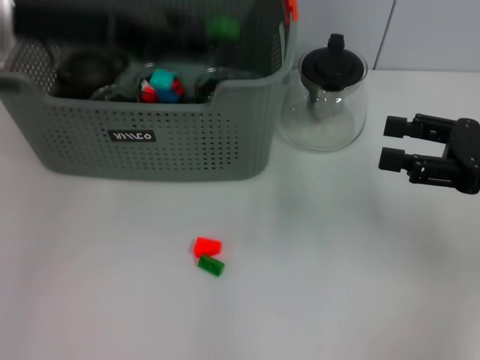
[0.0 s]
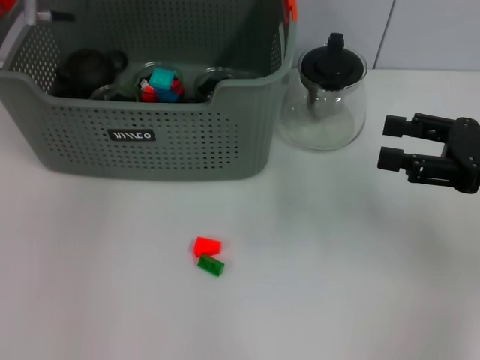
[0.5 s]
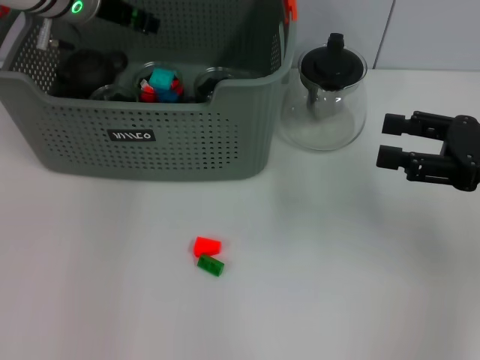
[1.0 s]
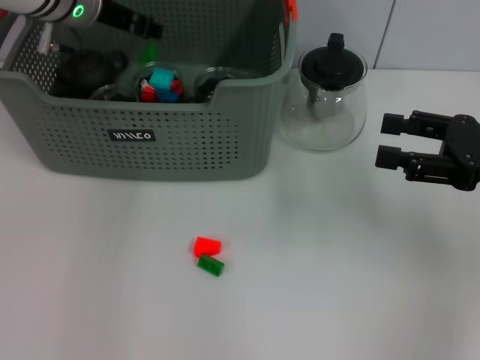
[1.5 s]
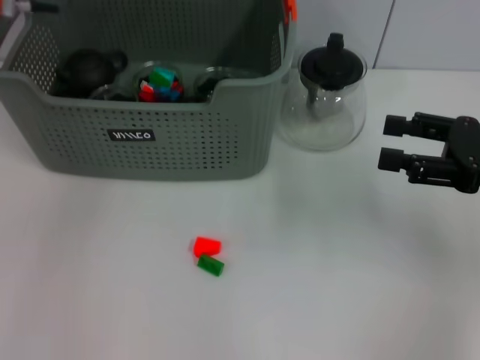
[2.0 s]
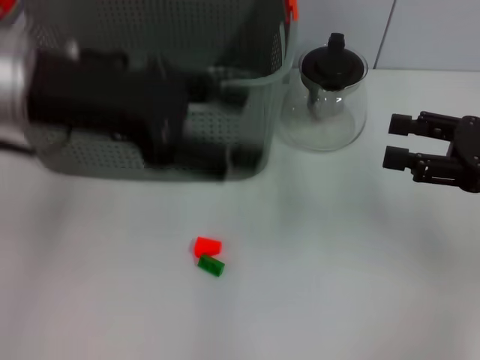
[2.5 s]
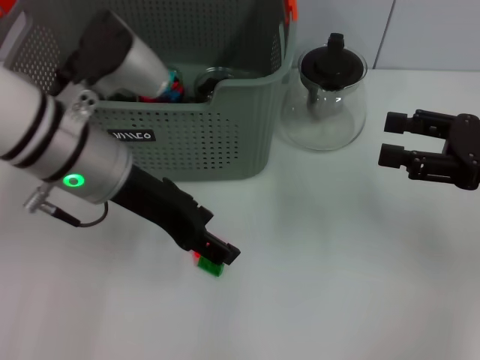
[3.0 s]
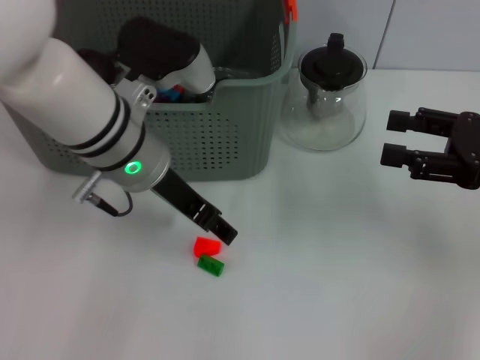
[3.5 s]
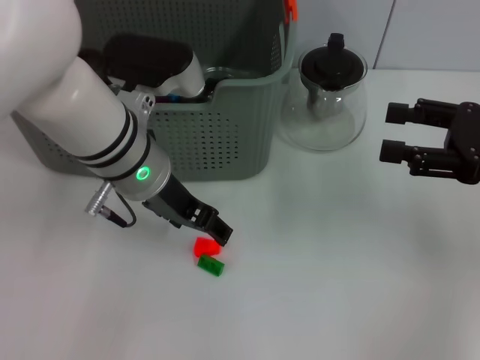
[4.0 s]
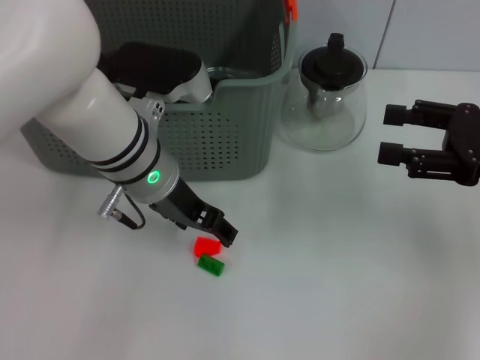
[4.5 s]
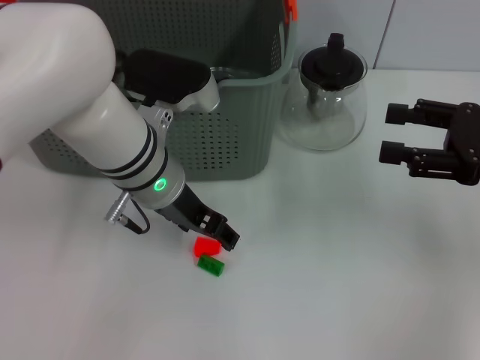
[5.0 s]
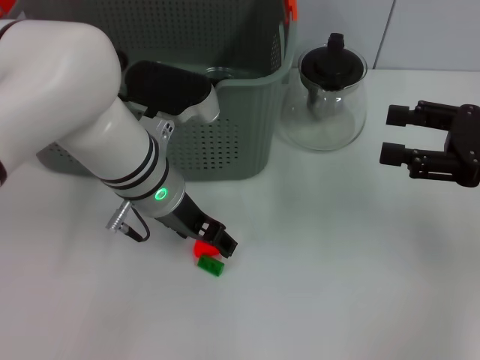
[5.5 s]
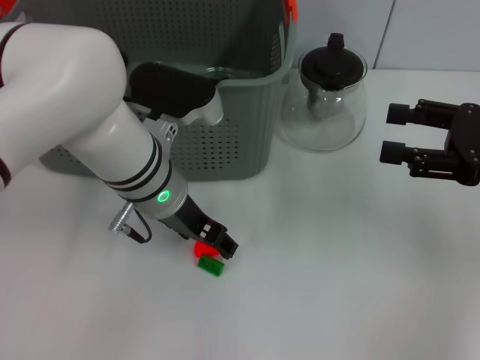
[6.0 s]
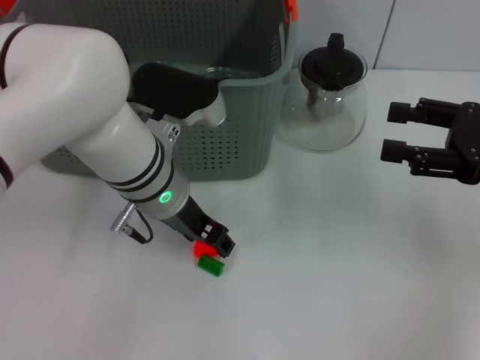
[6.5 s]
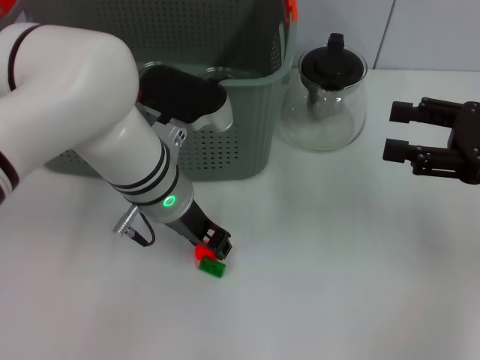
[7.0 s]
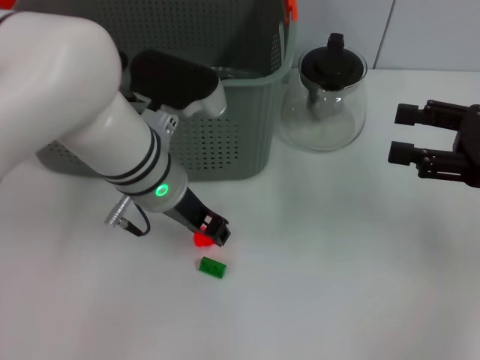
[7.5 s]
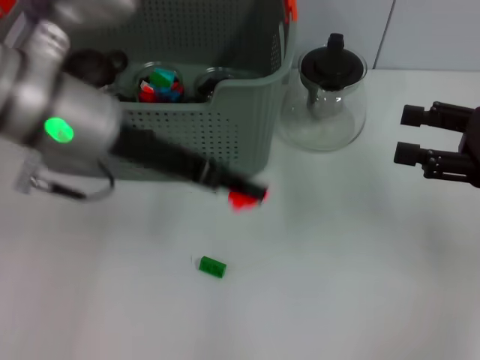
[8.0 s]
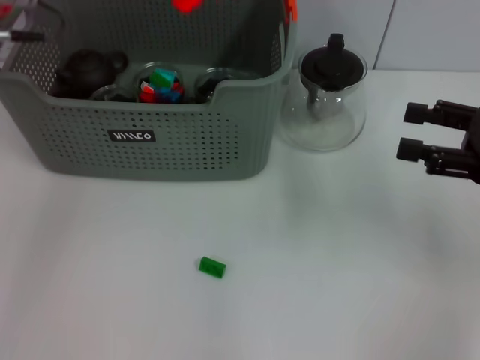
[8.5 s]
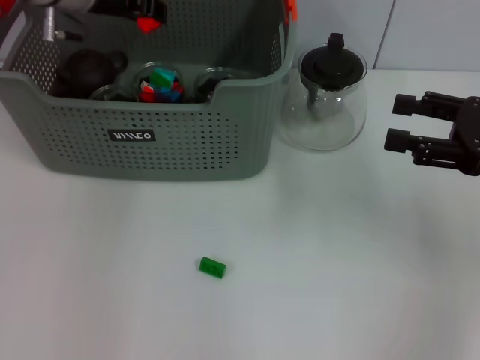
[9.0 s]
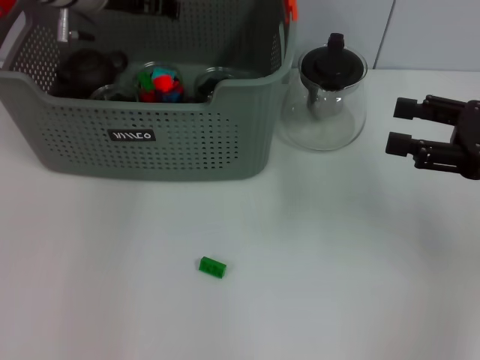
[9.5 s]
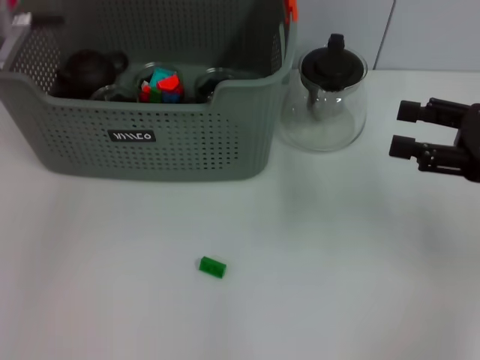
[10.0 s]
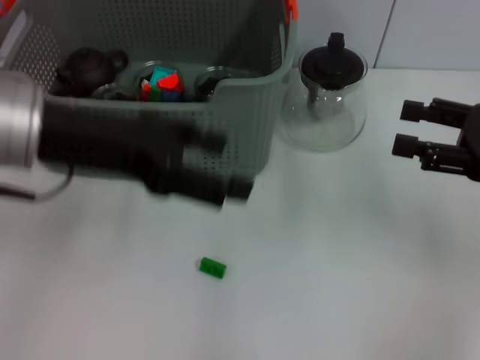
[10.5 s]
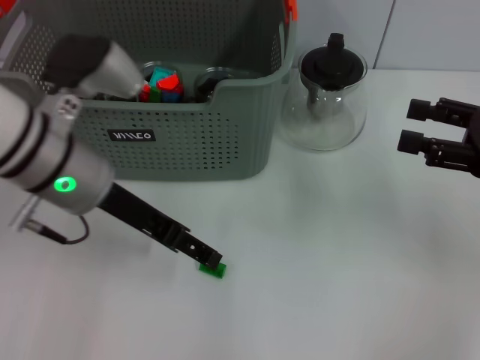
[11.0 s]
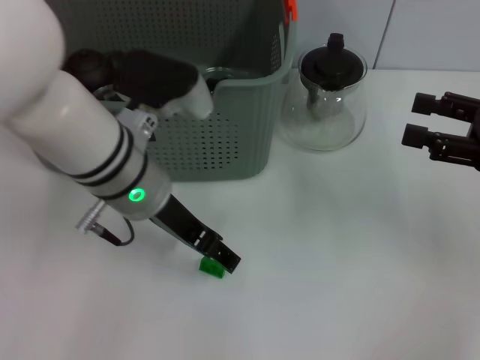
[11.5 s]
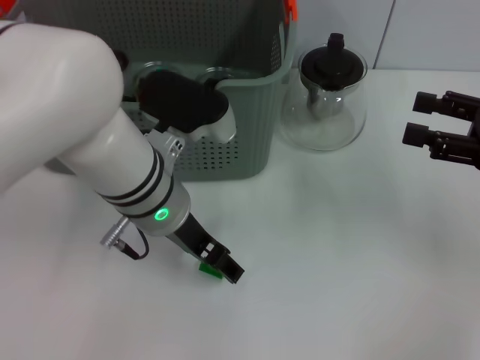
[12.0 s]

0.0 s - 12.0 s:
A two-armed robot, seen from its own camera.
Task of the whole recording: pick up the teacup on the table and place it into the storage bin, pick up the block on the table and place it into the storage bin.
Step, 0.0 s - 1.5 s: Place the green block in the storage box with left gripper.
Step, 2.0 s - 7.0 s: Grasp the orange block with left gripper.
Step, 7.5 s - 9.5 s: Place the orange block in the storage box with left gripper.
0.0 s - 2.0 s: The left gripper shifts about 10 cm forward, and opens its fingers.
2.0 s - 4.0 s: The left gripper travels downward, to the right and backward by roughly 15 cm.
4.0 s - 6.0 s: The grippers move only a little.
6.0 s - 8.0 s: The left gripper goes roughly 10 cm upward and to the left, and closes up.
8.0 s - 10.0 s: The left gripper travels upward and forward by approximately 10 cm, and opens.
10.0 s - 12.0 s: The left gripper travels downward and to the right by some 20 cm.

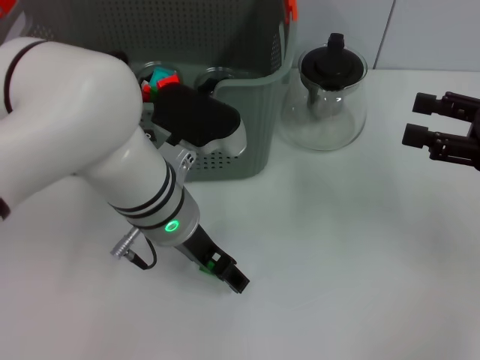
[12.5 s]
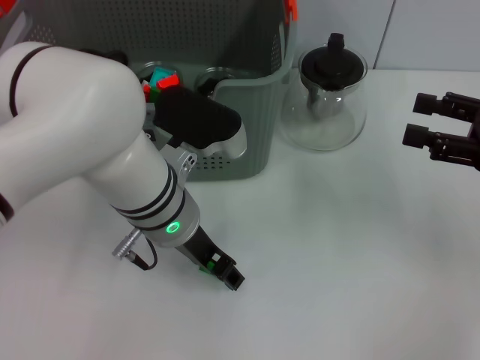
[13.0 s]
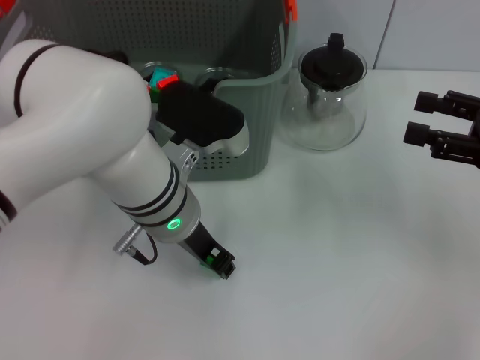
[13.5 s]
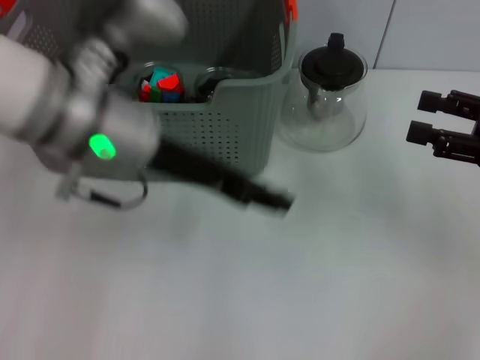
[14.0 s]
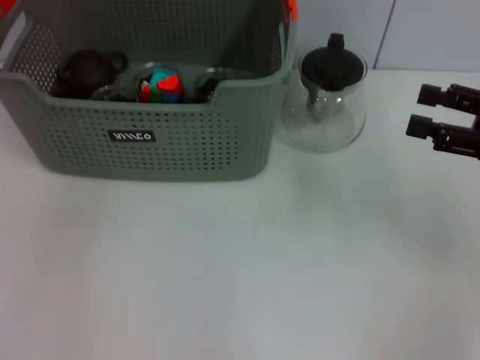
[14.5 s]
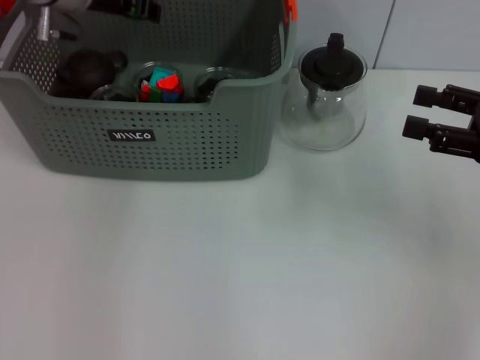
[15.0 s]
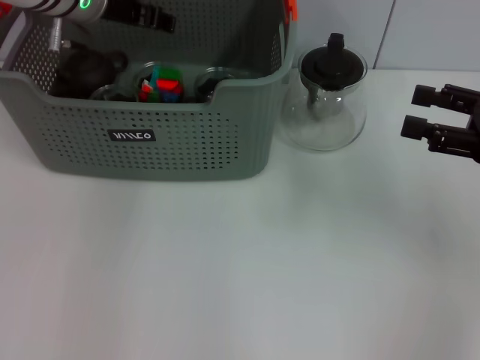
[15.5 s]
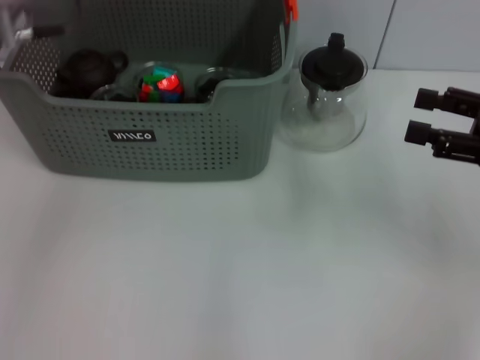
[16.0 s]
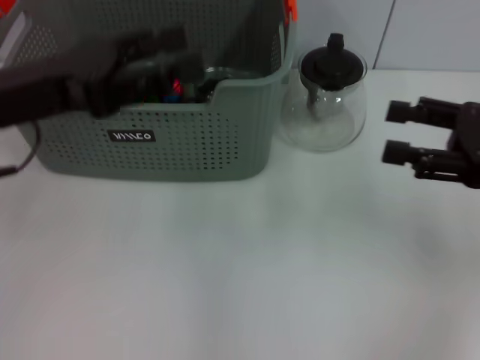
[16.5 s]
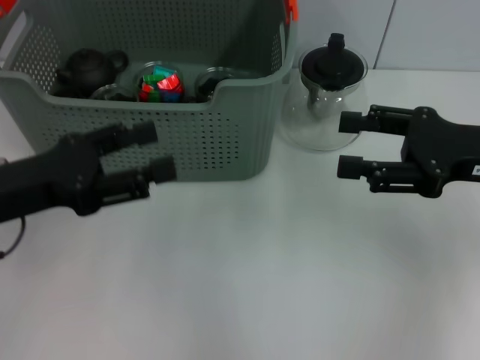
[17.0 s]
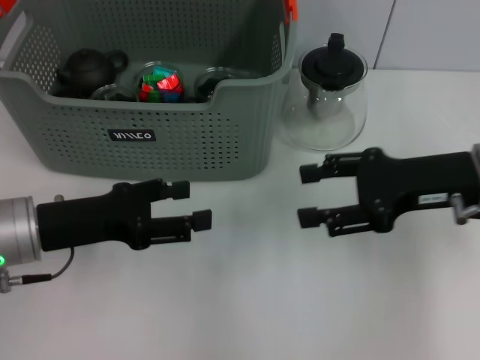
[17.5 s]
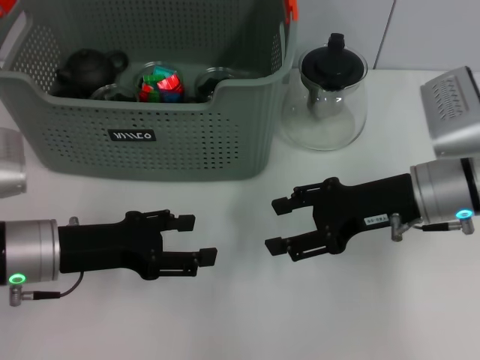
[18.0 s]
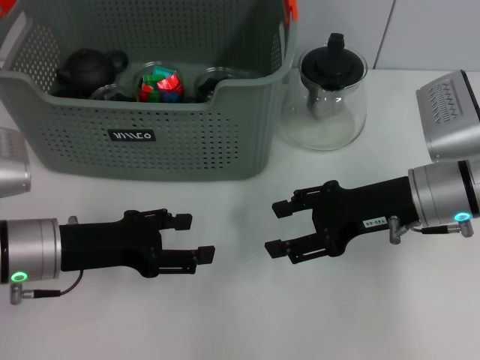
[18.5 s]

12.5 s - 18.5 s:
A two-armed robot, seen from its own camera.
Task of the whole recording: pick up the teacup on the table and place it into the storage bin, pick up the block on the table and place it into the storage bin.
Step, 14.0 s - 15.5 s: Place the green block in the storage box with left gripper.
12.5 s - 14.5 s: The left gripper heads upward, forward and to the left, covering about 25 cm, and closes.
14.5 s - 16.5 s: The left gripper is displaced backward, downward and to the left by about 20 cm, and opens its fingers.
16.5 s - 18.5 s: The right gripper travels to the left and downward by roughly 10 cm. Meanwhile the left gripper heads downward, covering approximately 15 cm.
